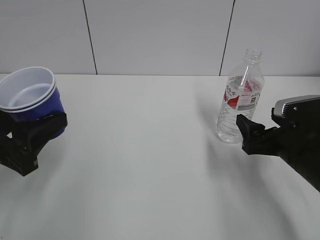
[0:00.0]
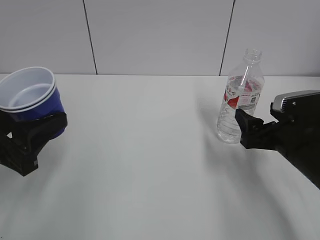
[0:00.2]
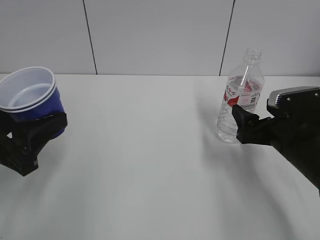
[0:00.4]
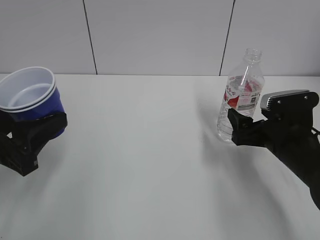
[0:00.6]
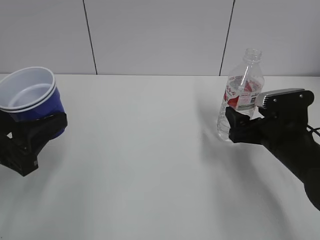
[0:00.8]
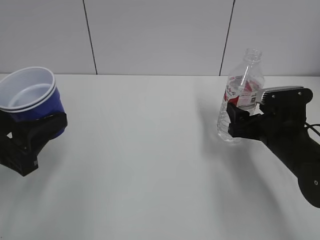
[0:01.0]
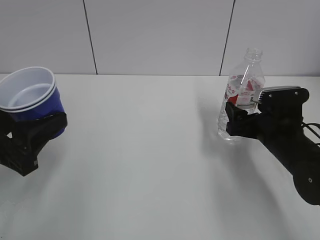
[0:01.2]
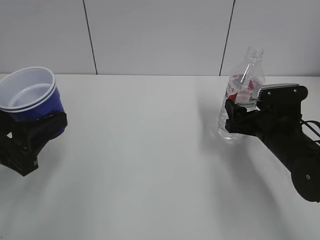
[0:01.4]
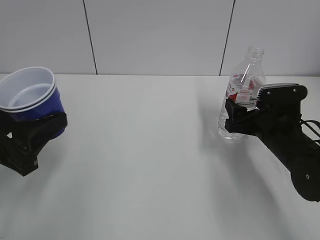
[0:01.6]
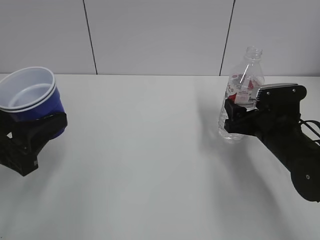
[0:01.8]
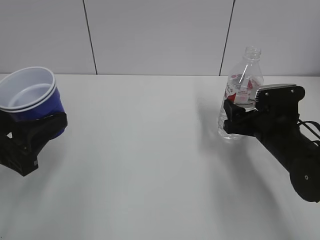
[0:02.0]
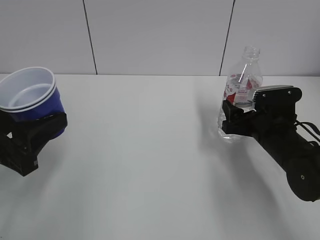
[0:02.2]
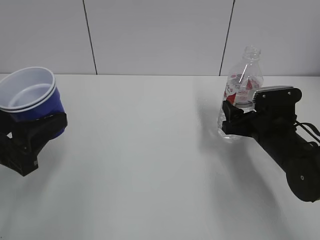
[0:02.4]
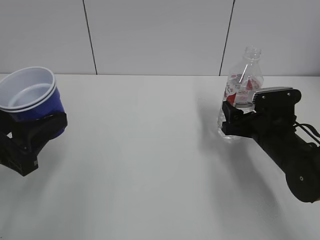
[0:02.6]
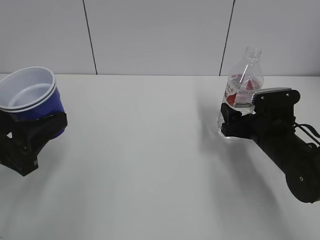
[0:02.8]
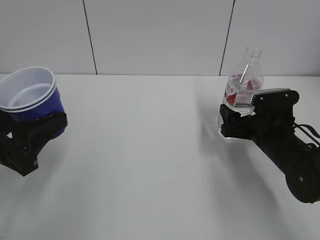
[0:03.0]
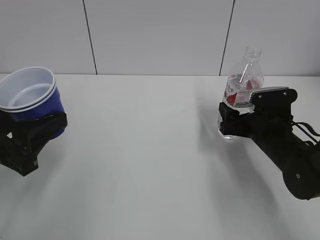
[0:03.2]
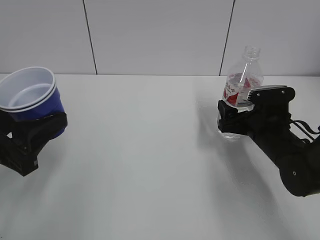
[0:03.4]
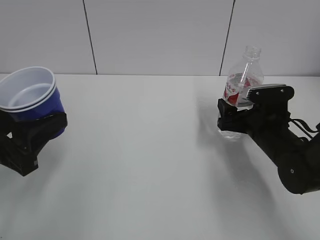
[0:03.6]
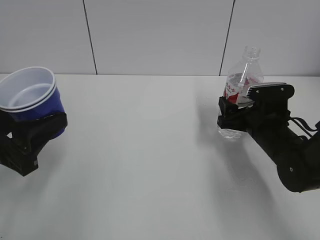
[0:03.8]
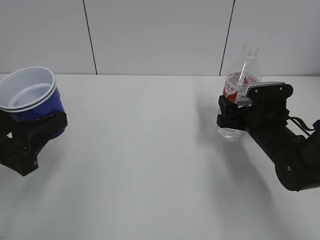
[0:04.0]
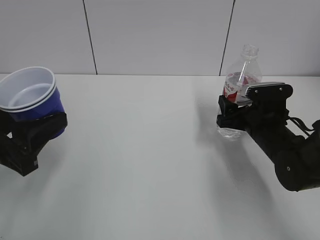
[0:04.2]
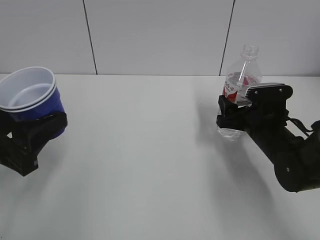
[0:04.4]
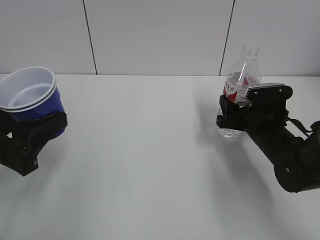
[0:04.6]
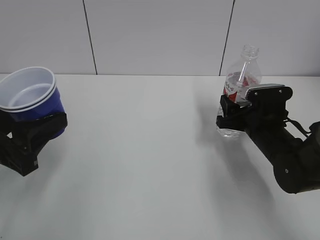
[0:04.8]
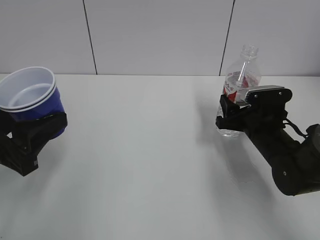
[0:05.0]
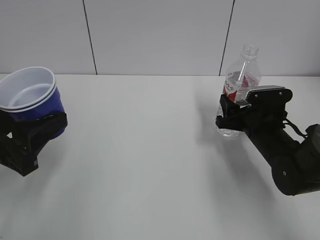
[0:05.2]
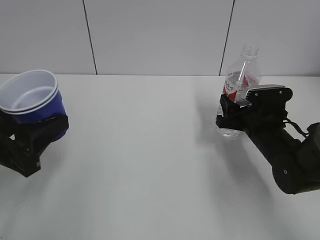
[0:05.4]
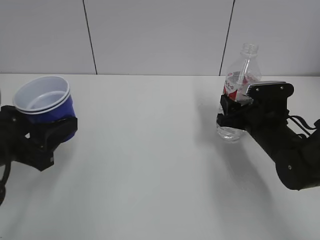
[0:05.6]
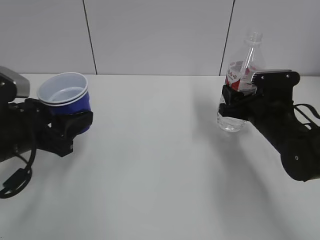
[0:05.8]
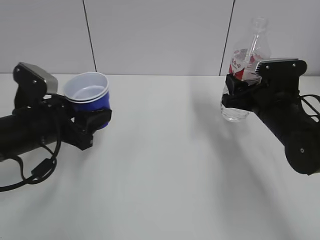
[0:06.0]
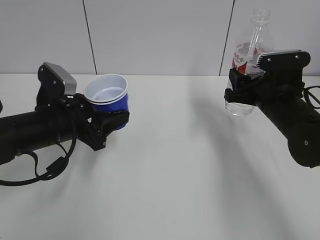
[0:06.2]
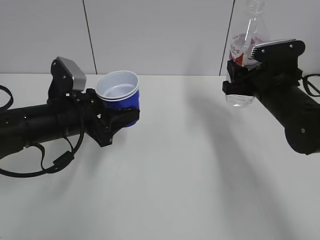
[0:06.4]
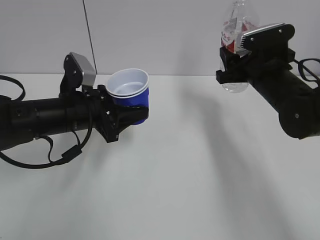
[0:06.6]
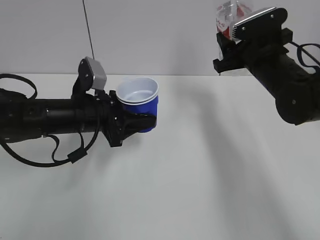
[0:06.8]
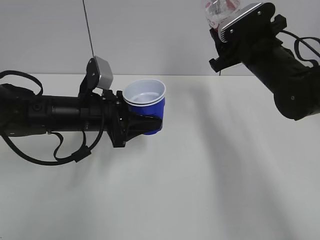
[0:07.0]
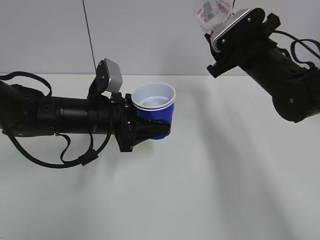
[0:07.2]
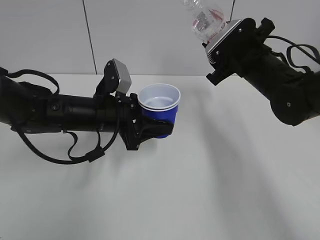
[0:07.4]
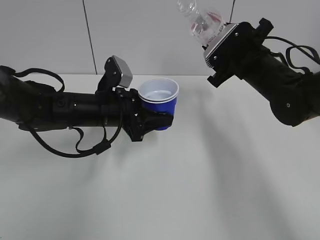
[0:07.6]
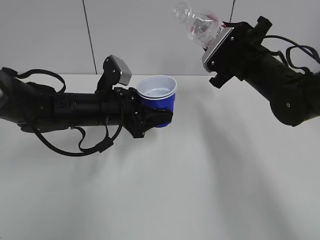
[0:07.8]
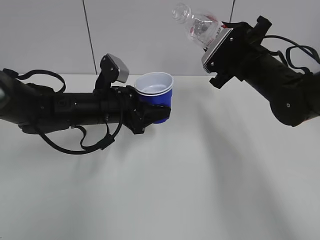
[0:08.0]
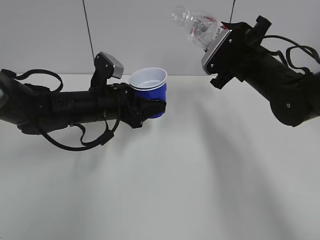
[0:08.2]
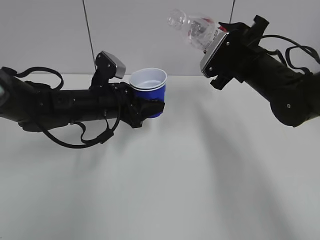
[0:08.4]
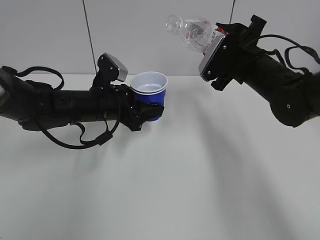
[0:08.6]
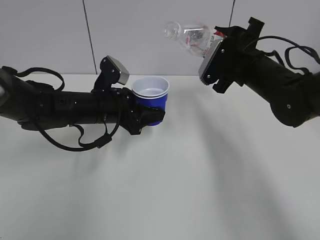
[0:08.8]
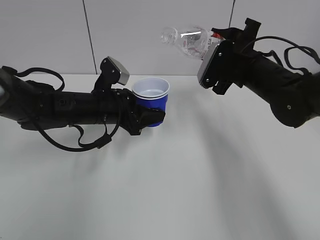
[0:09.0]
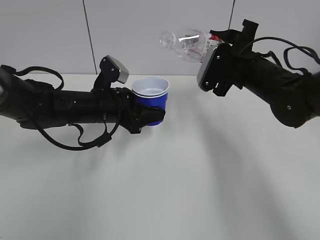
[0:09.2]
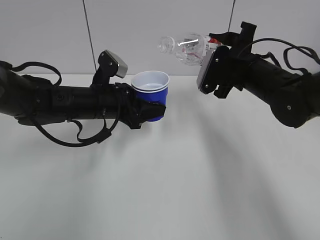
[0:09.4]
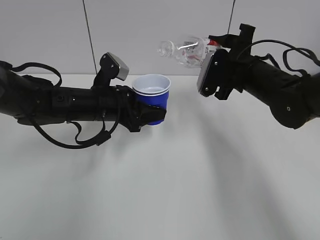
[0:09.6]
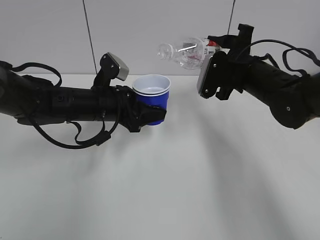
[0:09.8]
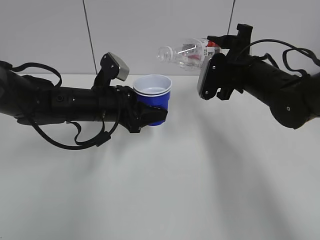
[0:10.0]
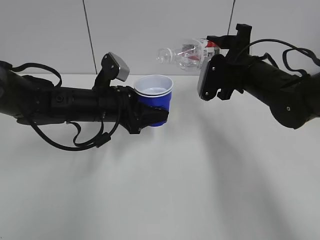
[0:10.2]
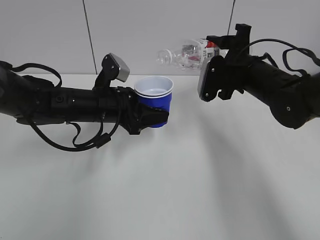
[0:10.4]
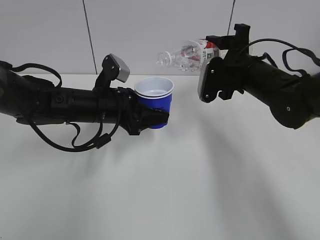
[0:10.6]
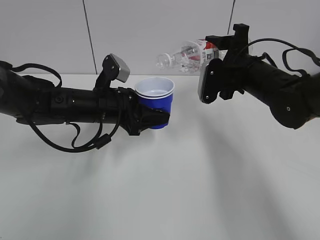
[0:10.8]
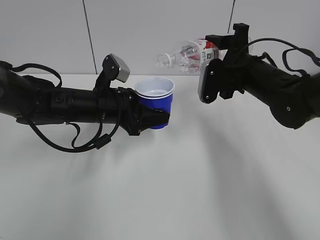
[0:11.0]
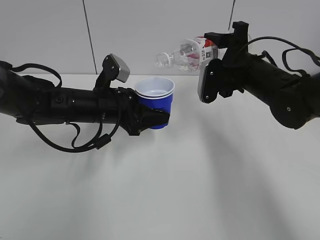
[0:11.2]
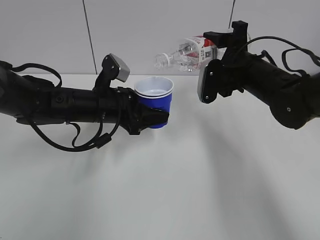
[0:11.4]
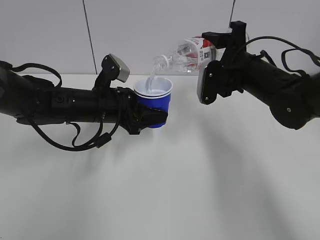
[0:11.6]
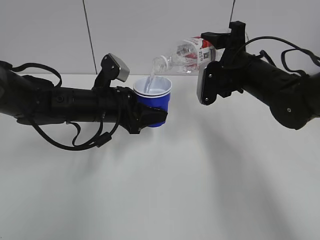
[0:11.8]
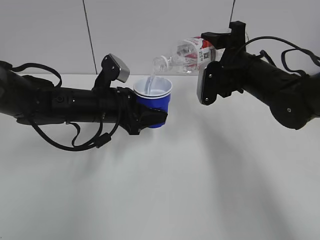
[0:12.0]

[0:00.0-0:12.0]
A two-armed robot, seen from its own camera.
Step, 0:00.0 to 0:05.6: Grab the water bottle with the right hand.
Step, 0:05.8 to 0:11.4: Lift the paper cup with the left hand.
0:00.0 to 0:01.6: The right gripper travels forward by roughly 5 cm.
0:01.6 to 0:03.0: The grippers stay close to where they were, moving slightly.
0:03.0 to 0:04.4: The right gripper closes its fingers.
0:04.4 to 0:06.0: The left gripper travels forward by roughly 10 cm, while the right gripper is displaced upward by roughly 5 cm, and closes its fingers.
0:06.0 to 0:07.6: The left gripper travels to the right and forward by about 10 cm. The right gripper moves upward and forward, approximately 10 cm.
0:09.0 to 0:10.4: The grippers make only small movements.
0:10.4 to 0:12.0: The grippers make only small movements.

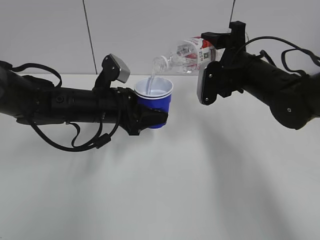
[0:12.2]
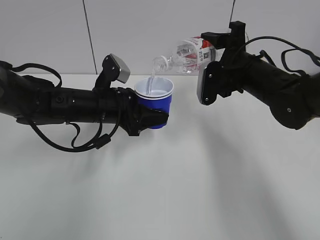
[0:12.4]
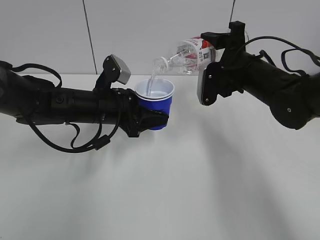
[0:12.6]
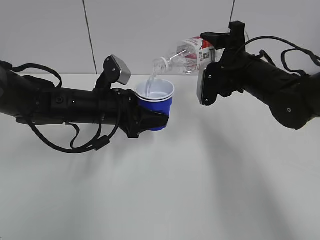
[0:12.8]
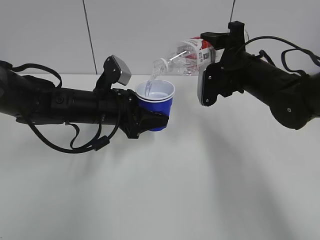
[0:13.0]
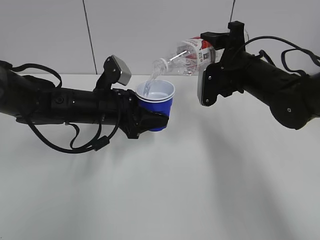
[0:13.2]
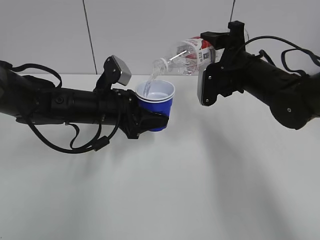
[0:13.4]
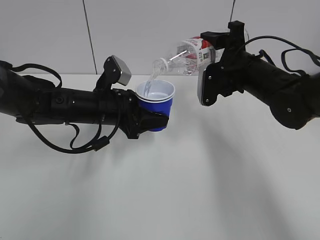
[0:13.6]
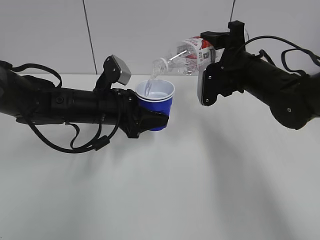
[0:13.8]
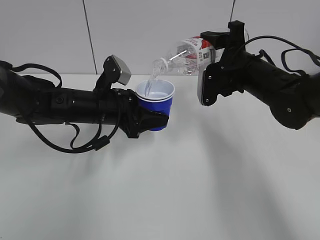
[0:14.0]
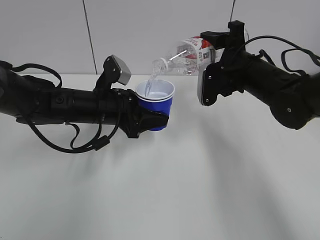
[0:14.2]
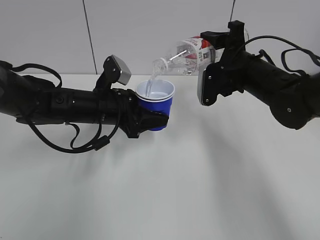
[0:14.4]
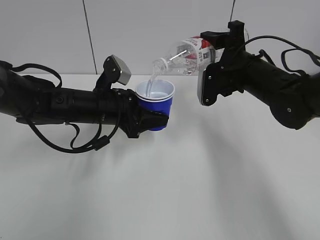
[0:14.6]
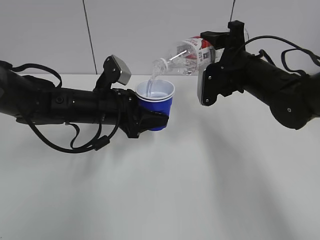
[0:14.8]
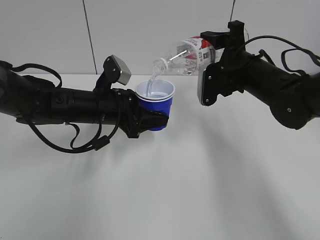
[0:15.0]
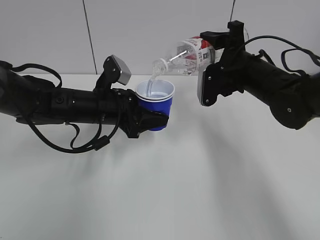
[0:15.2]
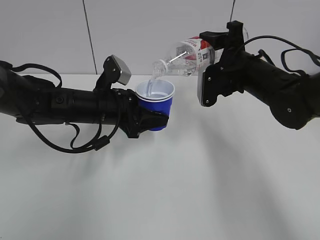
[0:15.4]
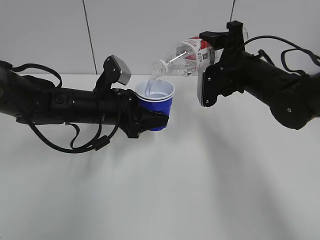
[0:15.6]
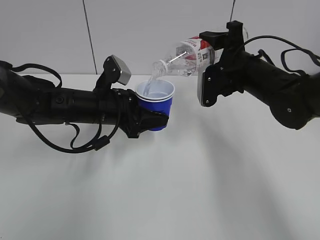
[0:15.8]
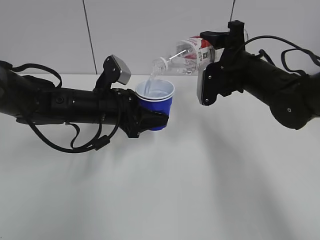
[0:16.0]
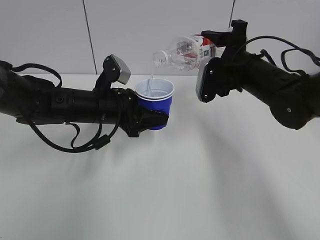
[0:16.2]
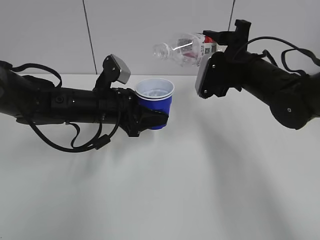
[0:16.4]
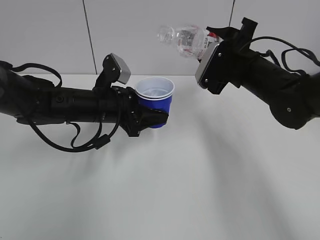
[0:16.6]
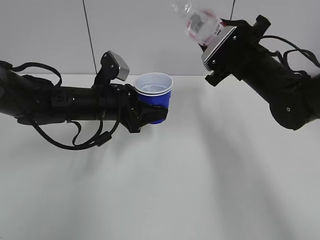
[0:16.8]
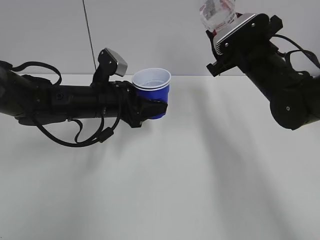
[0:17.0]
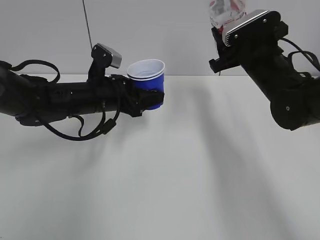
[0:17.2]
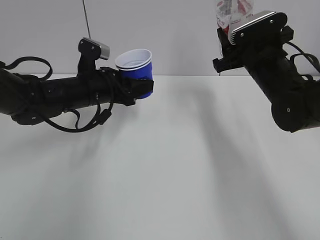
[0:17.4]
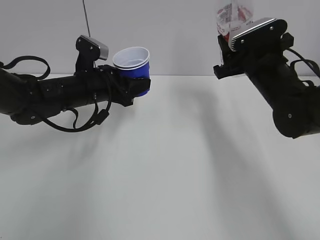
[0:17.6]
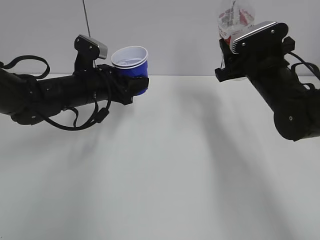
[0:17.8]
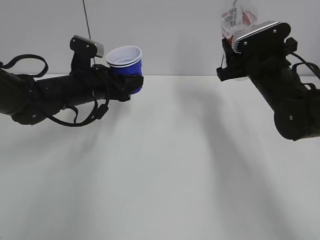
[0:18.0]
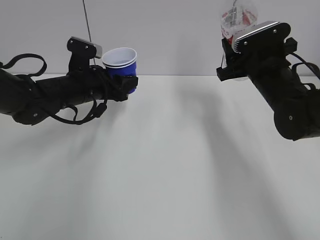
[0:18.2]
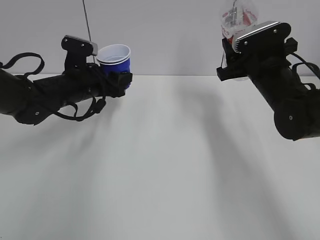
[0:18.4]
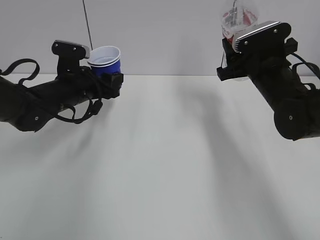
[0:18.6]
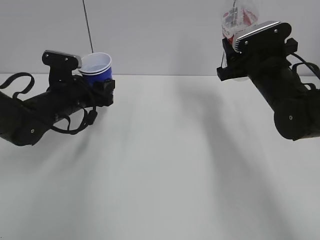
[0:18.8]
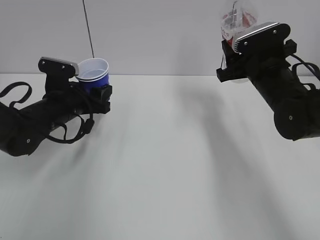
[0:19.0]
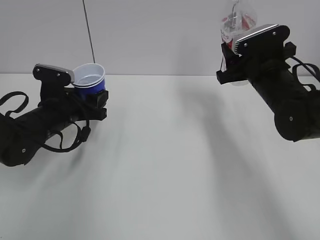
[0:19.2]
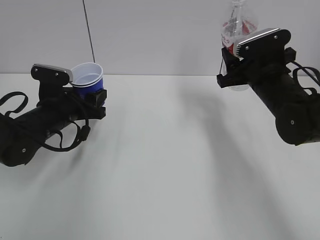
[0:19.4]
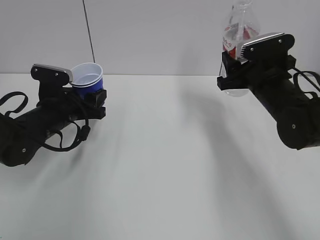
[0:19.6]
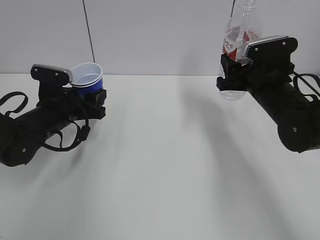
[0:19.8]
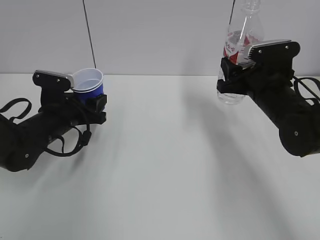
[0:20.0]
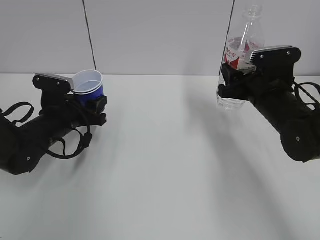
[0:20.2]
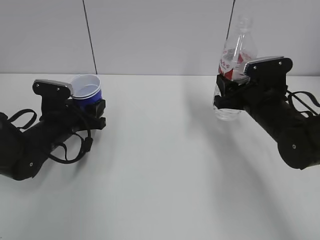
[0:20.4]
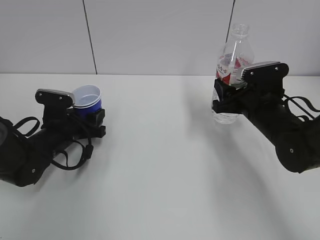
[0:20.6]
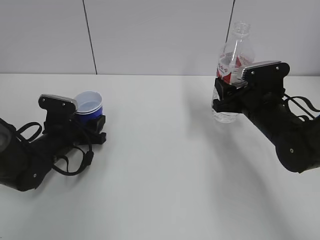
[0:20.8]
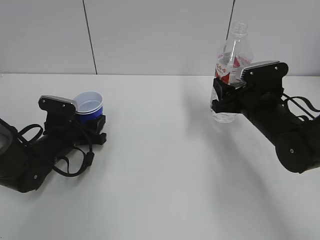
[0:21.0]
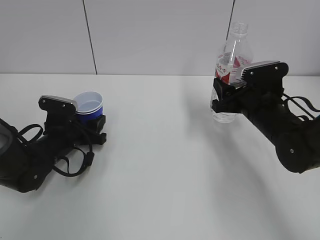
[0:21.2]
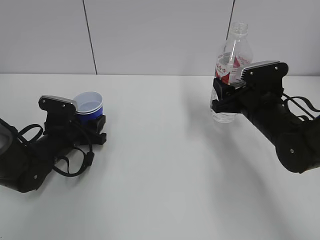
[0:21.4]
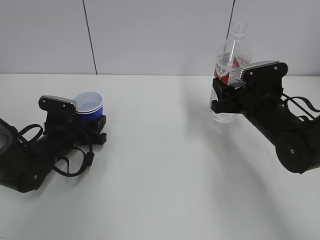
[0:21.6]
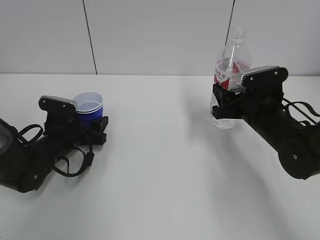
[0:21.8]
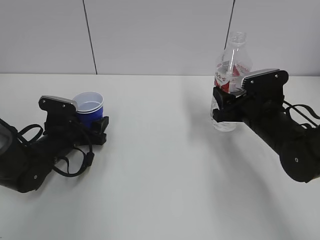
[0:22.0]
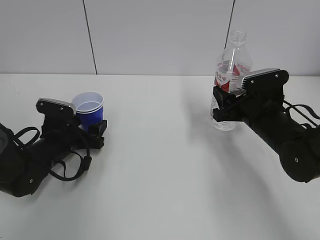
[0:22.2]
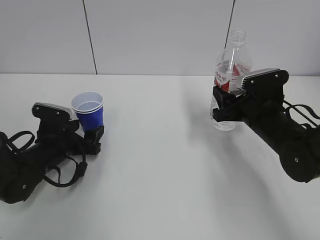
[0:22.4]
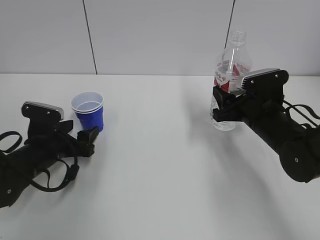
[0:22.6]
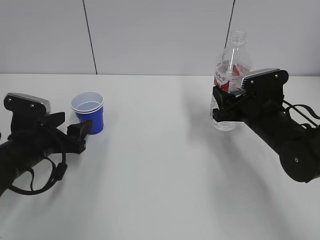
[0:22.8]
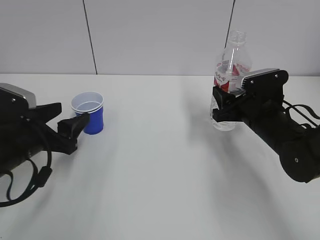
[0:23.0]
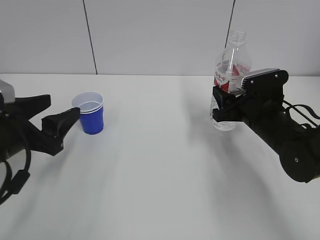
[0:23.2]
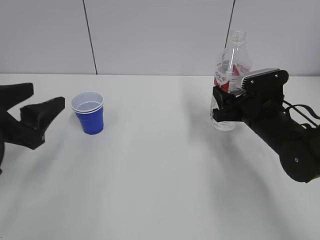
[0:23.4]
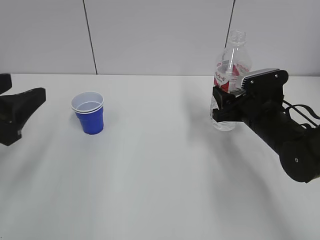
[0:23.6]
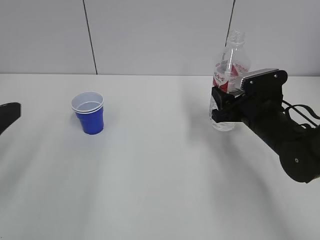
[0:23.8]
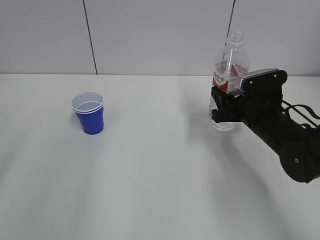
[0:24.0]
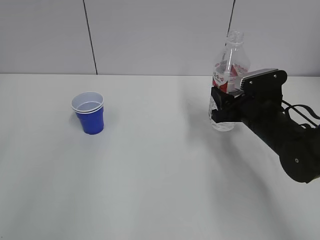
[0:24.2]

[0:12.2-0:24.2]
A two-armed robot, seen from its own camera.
Step, 0:12.2 to 0:16.2: Fill water with the left hand.
Step, 0:12.2 to 0:16.2: Pour water with the right hand.
Step, 0:16.4 to 0:17.2: Collect water with the right hand.
Step, 0:17.4 to 0:22.0: Place the paper cup with the left hand.
0:12.2 to 0:15.2: The two grippers keep their place.
0:16.6 to 0:18.2: The left gripper shifts by approximately 5 cm.
0:18.2 to 0:19.8: The left gripper changes place by some 5 cm.
0:19.8 to 0:21.2: The left gripper goes about 5 cm downward.
0:21.2 to 0:22.6: The left gripper ends up roughly 5 cm from where it was, and opens.
0:22.6 to 0:24.2: The left gripper is displaced upward and backward by roughly 35 cm.
